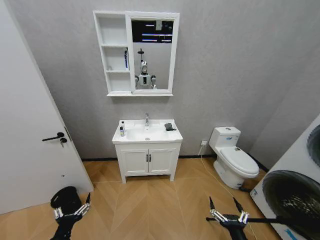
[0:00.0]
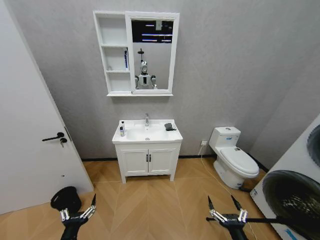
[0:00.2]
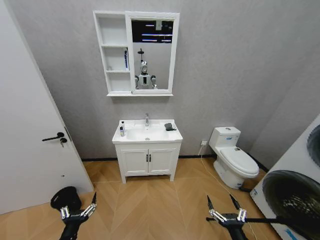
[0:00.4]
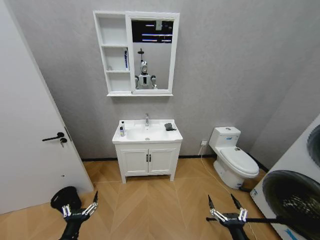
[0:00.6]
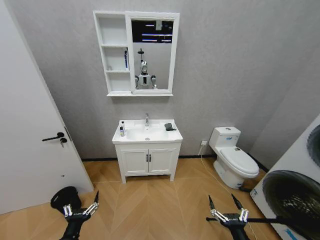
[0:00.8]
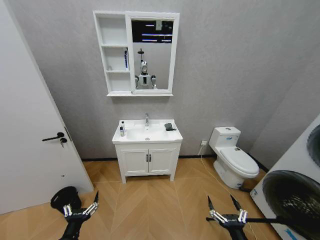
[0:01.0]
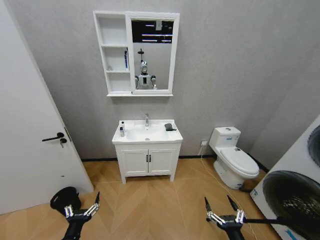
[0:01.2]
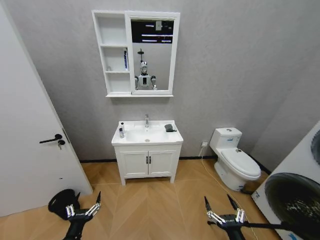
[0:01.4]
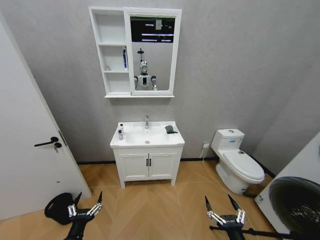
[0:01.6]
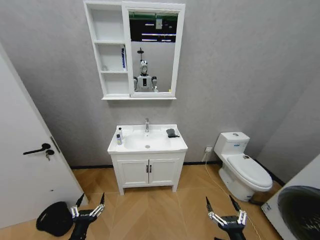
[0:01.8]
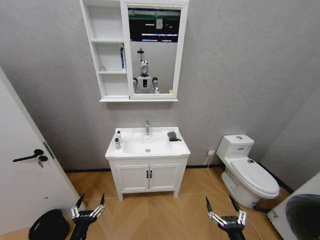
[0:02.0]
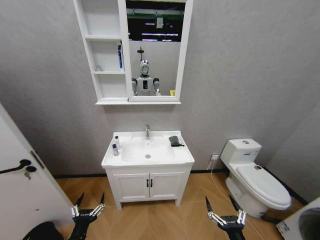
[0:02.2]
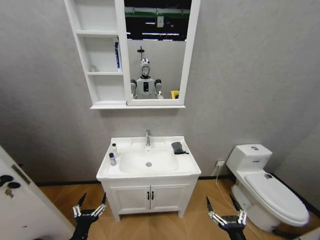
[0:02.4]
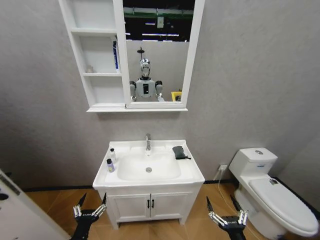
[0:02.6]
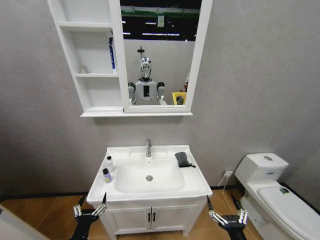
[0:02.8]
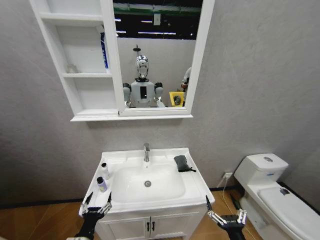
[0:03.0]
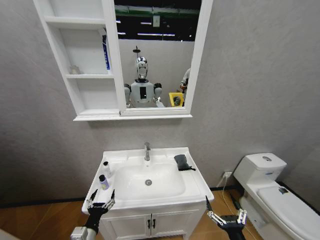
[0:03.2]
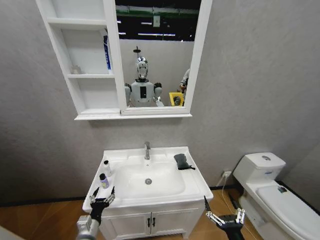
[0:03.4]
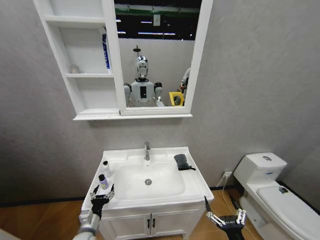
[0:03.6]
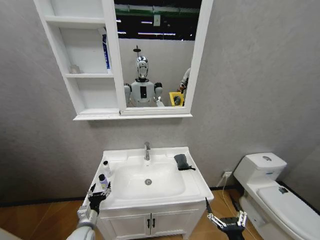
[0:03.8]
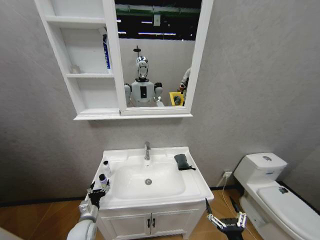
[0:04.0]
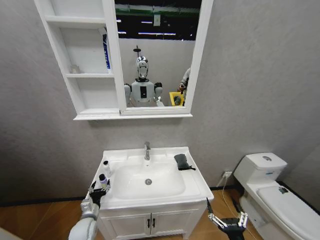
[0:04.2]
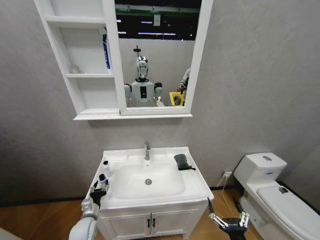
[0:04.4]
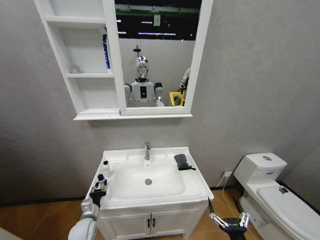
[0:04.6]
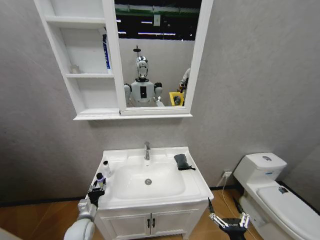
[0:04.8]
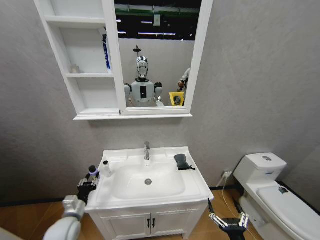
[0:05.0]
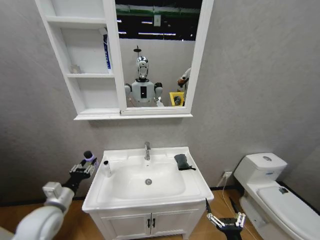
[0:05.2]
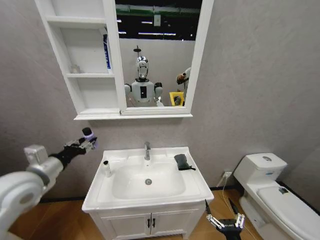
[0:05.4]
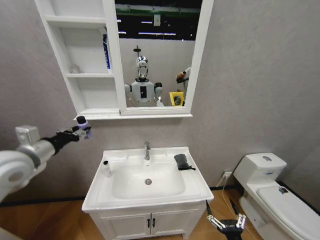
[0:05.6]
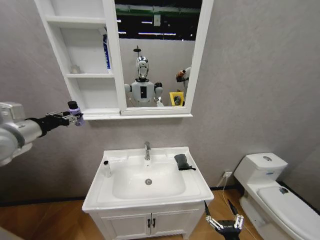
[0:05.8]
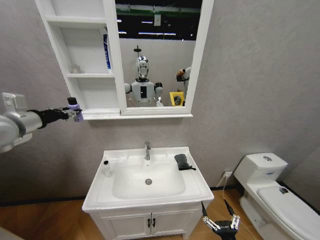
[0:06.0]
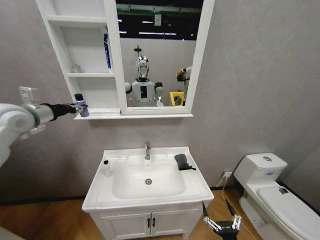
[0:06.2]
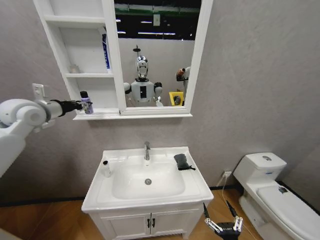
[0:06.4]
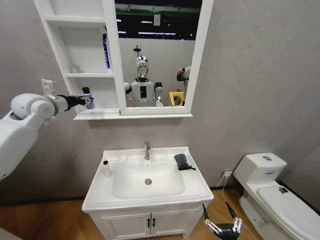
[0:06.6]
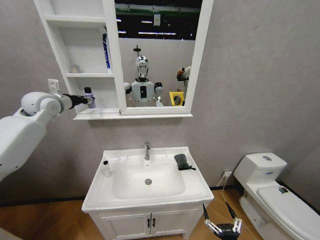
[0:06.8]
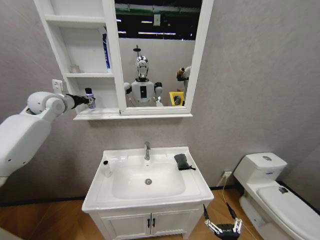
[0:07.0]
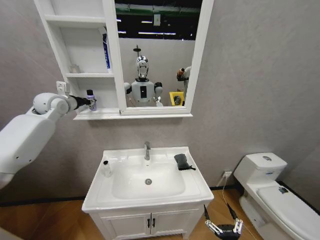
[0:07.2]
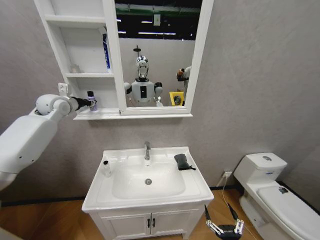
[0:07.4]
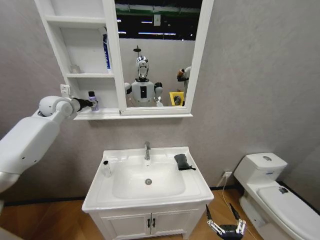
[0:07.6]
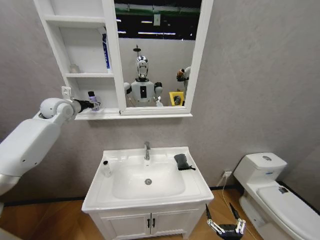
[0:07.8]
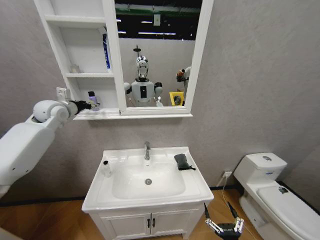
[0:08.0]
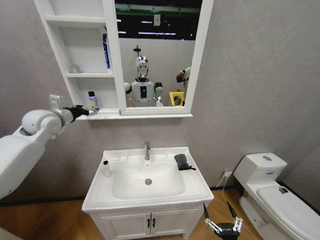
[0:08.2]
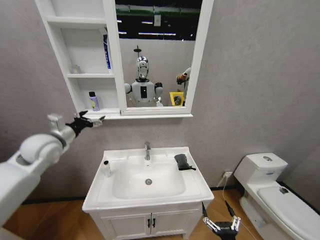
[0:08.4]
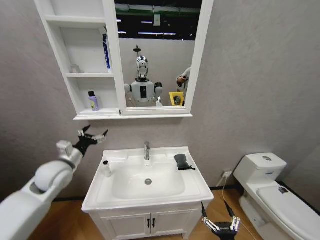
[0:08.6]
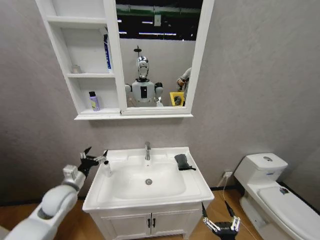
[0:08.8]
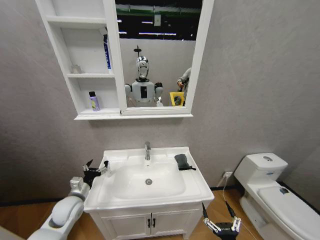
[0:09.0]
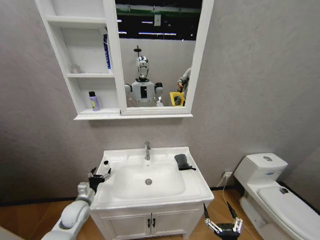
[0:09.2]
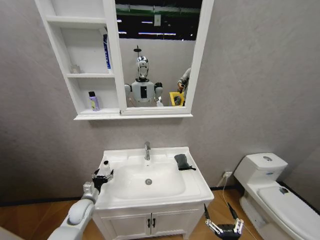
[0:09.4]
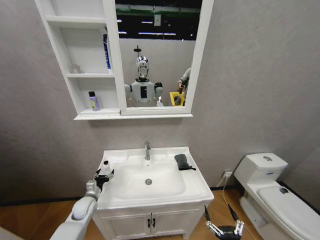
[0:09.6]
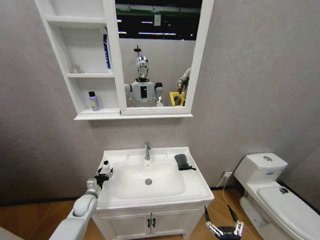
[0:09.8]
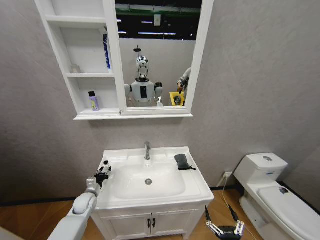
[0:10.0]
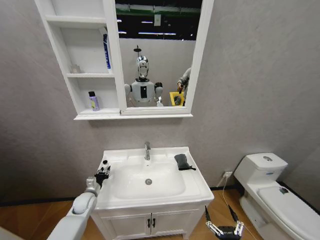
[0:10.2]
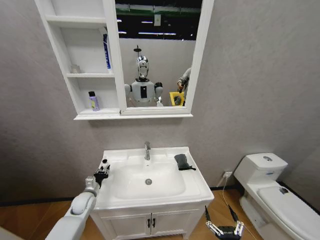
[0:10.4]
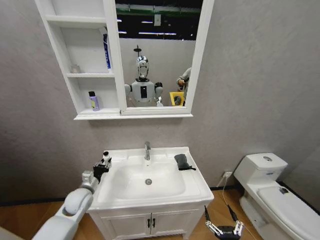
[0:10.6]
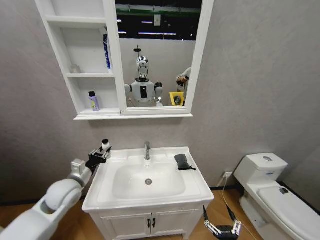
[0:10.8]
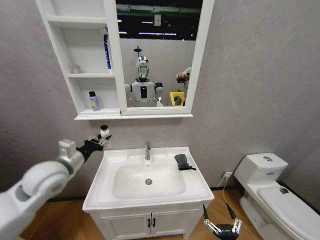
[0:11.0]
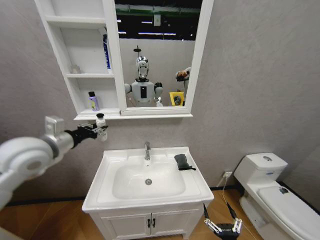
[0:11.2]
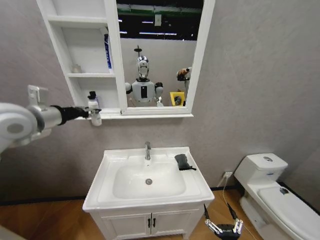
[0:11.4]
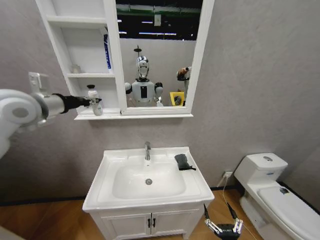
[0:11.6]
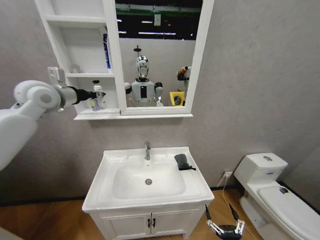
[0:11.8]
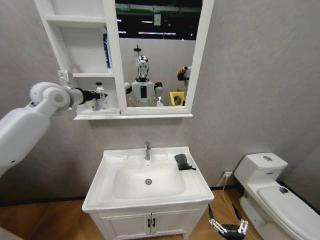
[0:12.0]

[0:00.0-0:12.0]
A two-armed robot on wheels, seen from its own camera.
Task of the whole recording: Move facial cleanser and shampoo from washbasin to cabinet, then wipe washbasin with towel.
0:03.0 to 0:04.4: The left gripper travels forward by some 15 cm.
0:04.4 to 0:06.0: The left gripper moves upward, some 50 cm, and closes up.
0:06.0 to 0:07.6: The left gripper is displaced forward by approximately 20 cm.
0:07.6 to 0:09.0: The left gripper heads downward and backward, covering some 40 cm, and opens.
0:09.0 to 0:10.4: The left gripper moves downward and forward, about 10 cm, and closes its fingers.
0:10.4 to 0:12.0: The left gripper heads upward, covering roughly 50 cm.

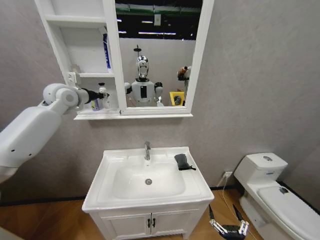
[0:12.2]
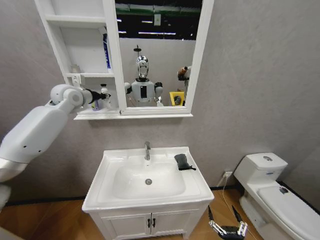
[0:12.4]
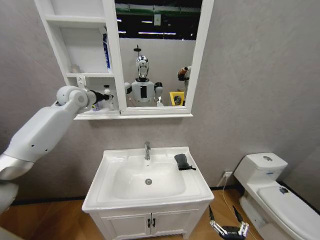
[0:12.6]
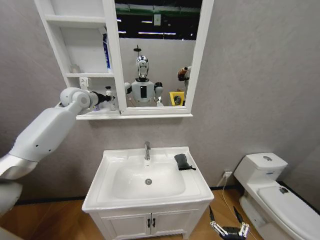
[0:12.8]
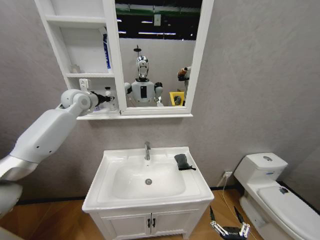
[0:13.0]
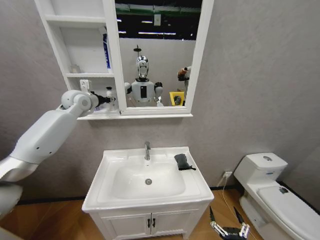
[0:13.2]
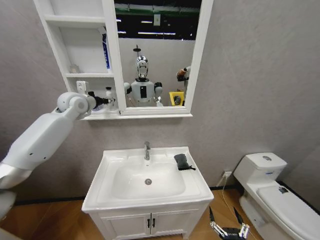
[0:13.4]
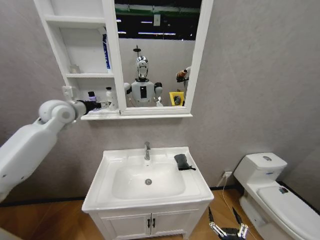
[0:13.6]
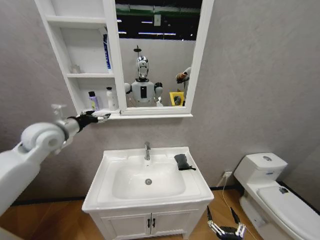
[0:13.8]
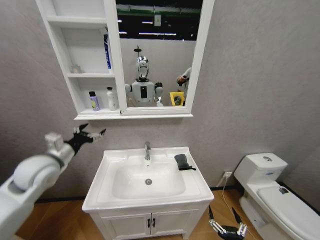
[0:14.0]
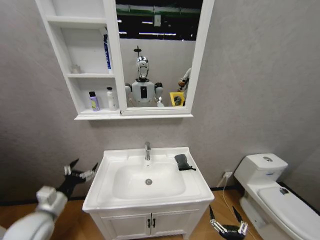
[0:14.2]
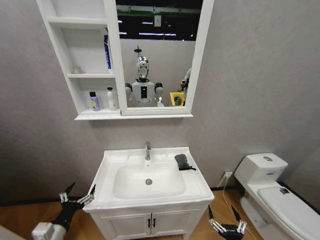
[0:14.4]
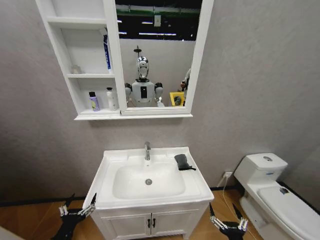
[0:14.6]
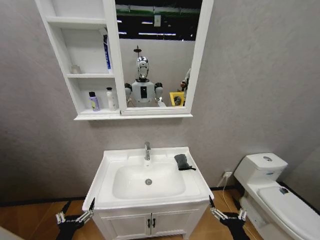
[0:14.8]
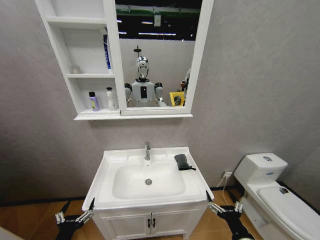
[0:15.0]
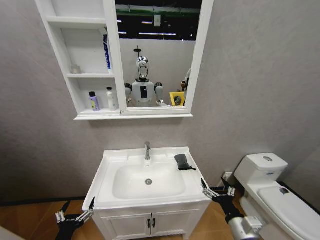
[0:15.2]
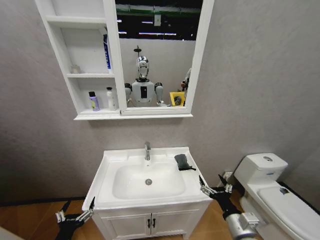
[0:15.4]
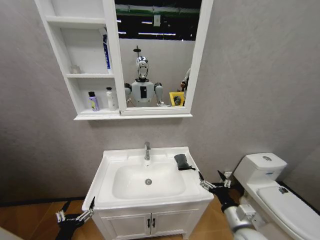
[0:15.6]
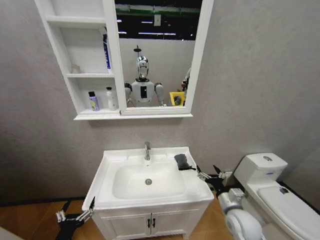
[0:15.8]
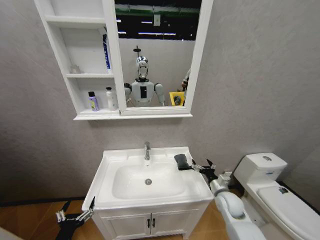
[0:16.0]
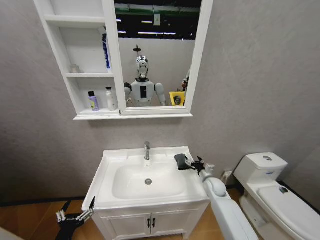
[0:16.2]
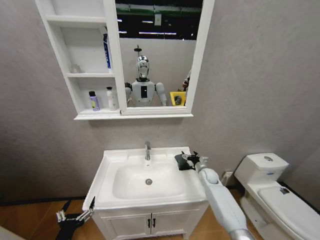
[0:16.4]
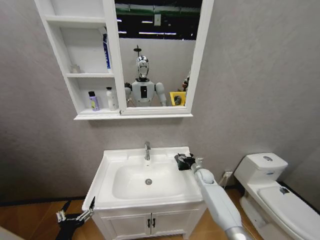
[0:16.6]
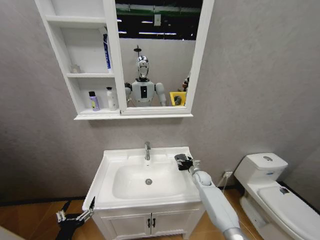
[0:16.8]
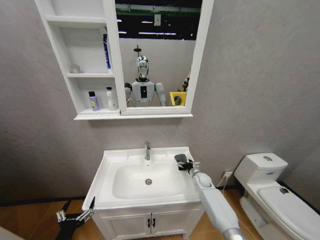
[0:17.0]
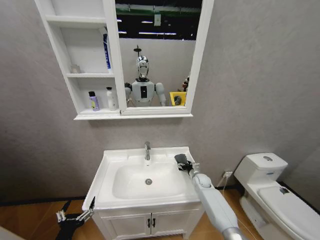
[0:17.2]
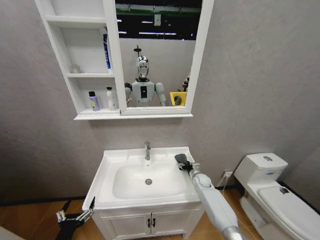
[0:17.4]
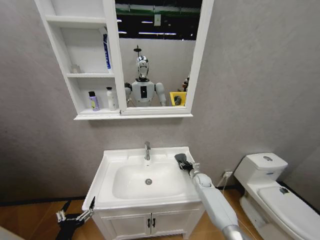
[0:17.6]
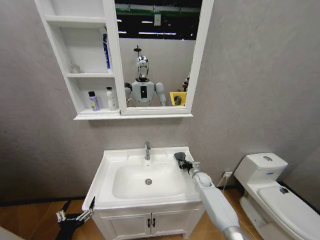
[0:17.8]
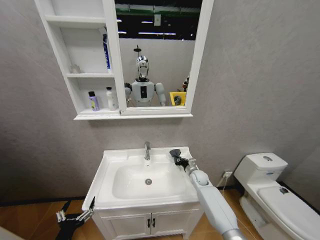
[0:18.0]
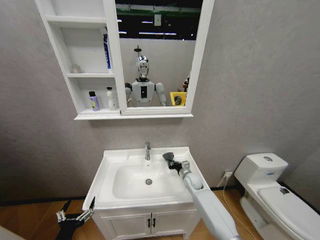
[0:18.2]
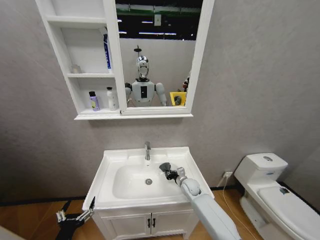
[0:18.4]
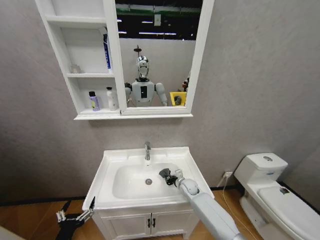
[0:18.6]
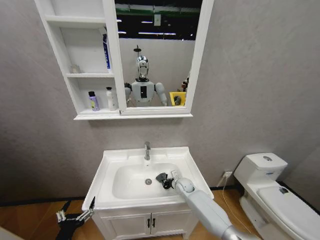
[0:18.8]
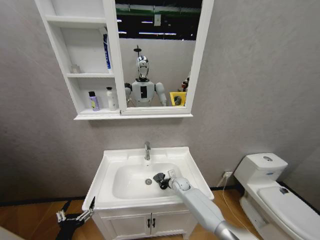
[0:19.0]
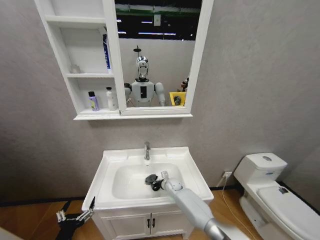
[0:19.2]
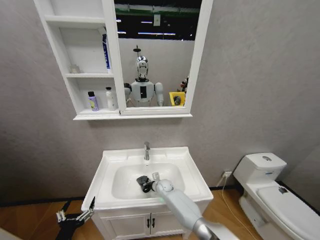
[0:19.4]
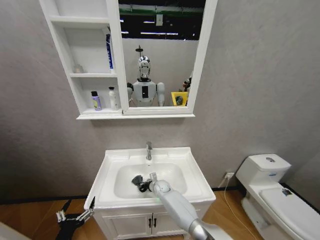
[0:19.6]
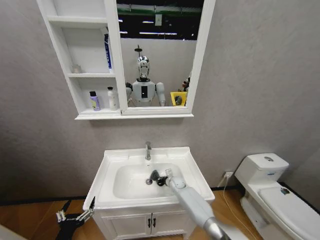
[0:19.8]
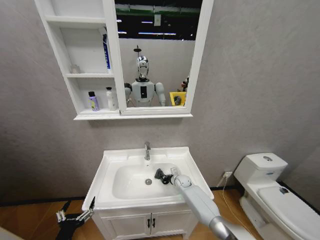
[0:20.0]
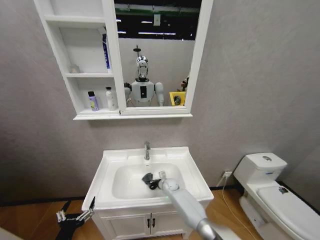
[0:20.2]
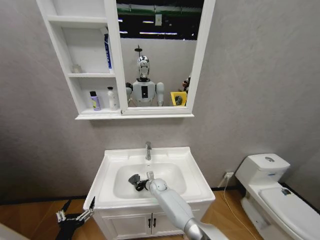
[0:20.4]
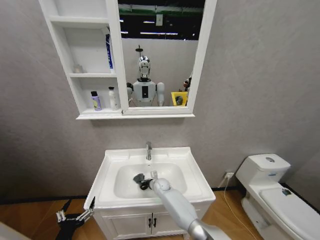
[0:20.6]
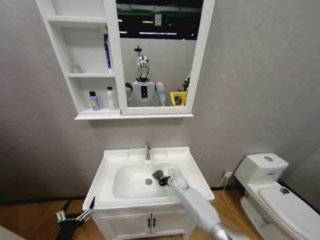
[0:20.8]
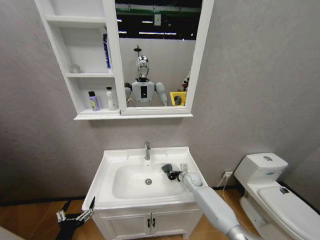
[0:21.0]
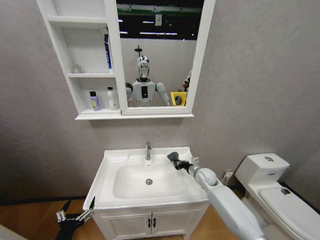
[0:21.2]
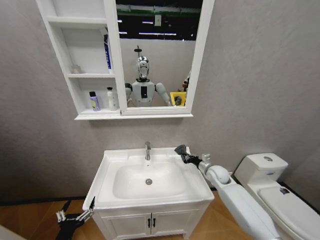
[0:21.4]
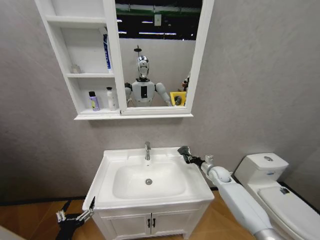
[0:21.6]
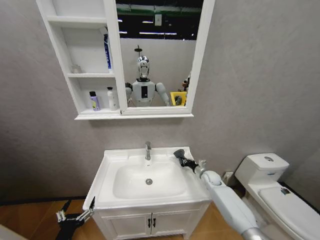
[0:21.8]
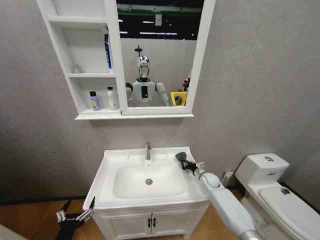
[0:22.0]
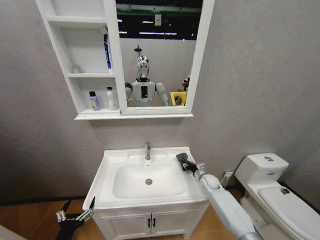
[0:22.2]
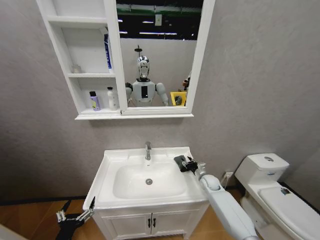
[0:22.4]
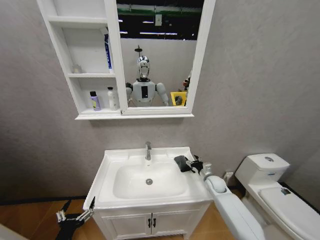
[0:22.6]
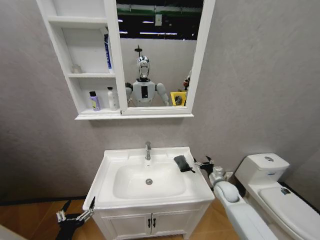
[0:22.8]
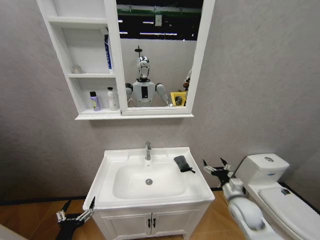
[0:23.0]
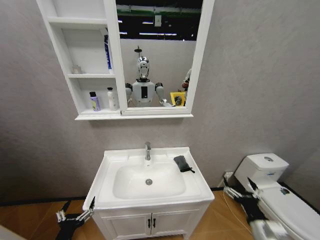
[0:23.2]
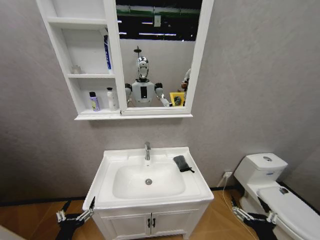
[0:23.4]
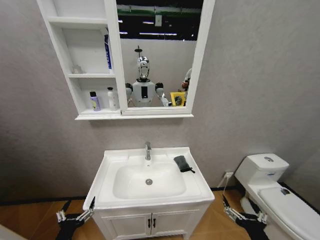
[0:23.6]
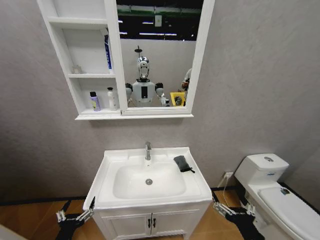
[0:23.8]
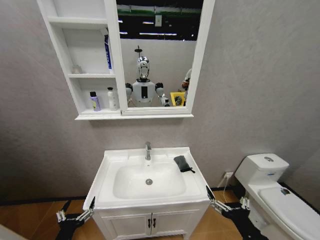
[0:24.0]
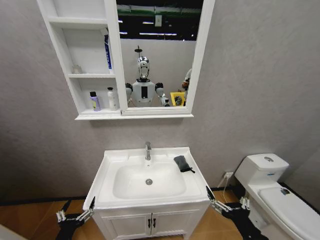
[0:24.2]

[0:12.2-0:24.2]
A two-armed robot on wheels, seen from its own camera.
Task of the whole recording: Move facial cleanser and shampoo from washbasin to cabinet, then wipe washbasin with towel.
0:12.2 to 0:13.8: The left gripper shifts roughly 15 cm backward and downward, and opens.
0:13.8 to 0:15.2: The right gripper shifts some 15 cm upward and forward; the left gripper moves downward and backward, about 40 cm.
0:15.2 to 0:16.6: The right gripper heads forward, covering roughly 35 cm.
0:16.6 to 0:18.2: The right gripper travels to the left by approximately 10 cm, and closes.
0:18.2 to 0:19.8: The right gripper shifts approximately 10 cm to the left and downward.
0:19.8 to 0:21.2: The right gripper swings left and right, roughly 25 cm each way, with 2 reversals.
0:21.2 to 0:22.6: The right gripper is displaced to the right and downward by approximately 10 cm, and opens up.
0:22.6 to 0:24.2: The right gripper heads backward, covering roughly 35 cm.
